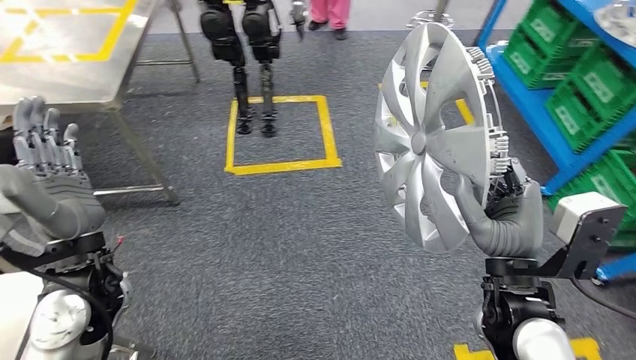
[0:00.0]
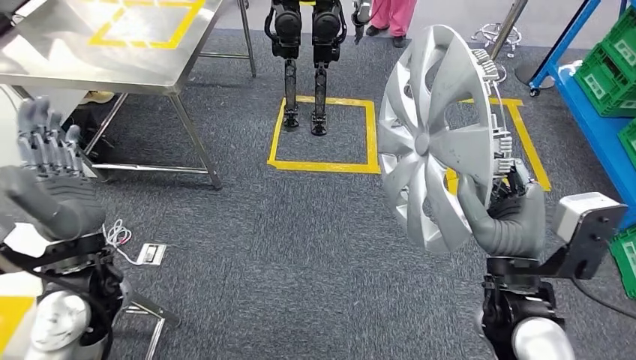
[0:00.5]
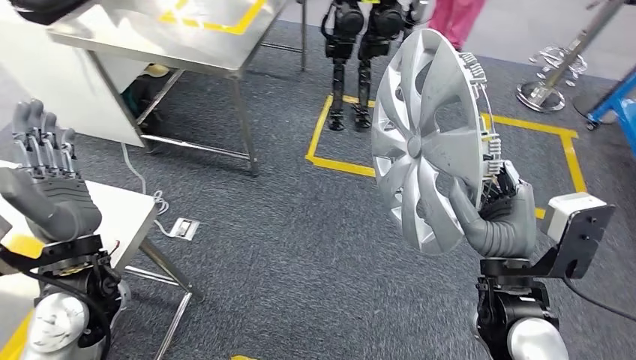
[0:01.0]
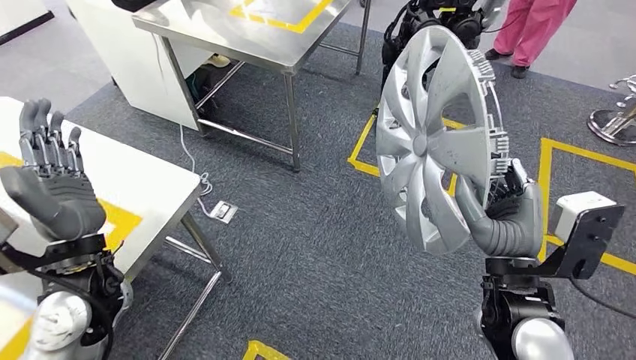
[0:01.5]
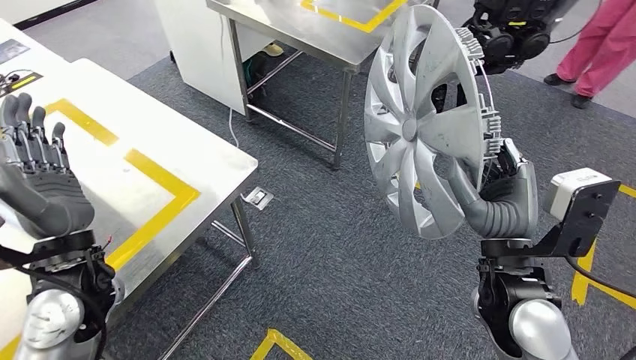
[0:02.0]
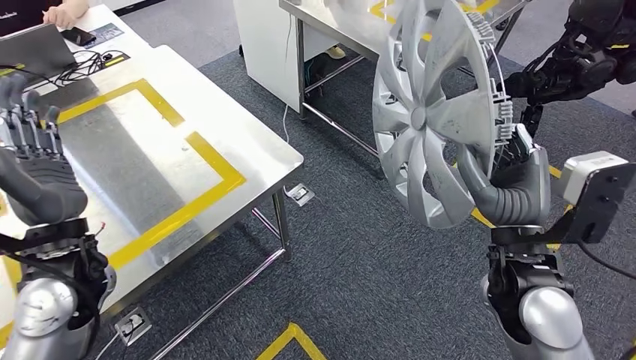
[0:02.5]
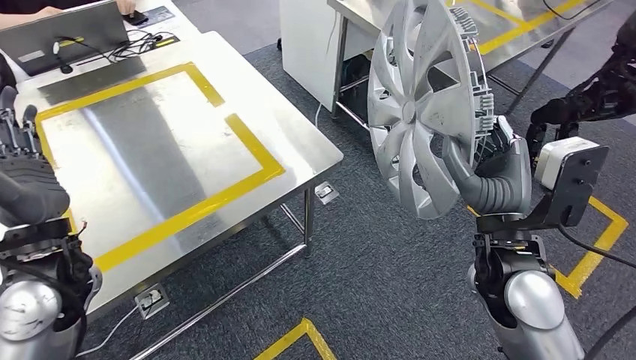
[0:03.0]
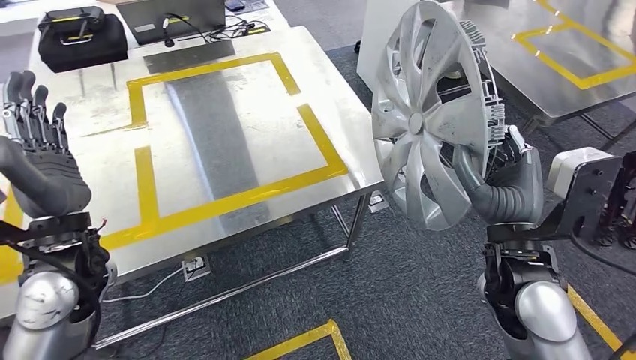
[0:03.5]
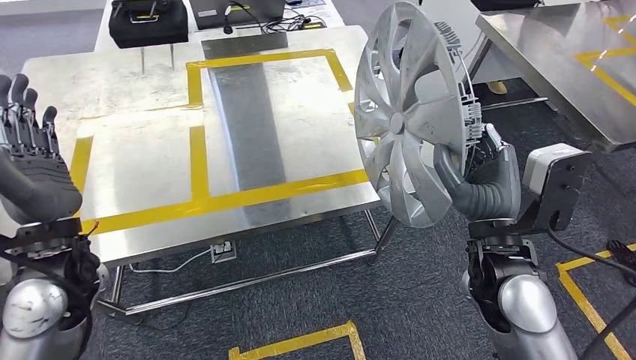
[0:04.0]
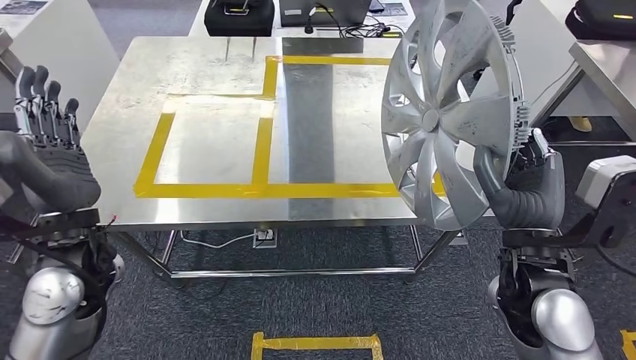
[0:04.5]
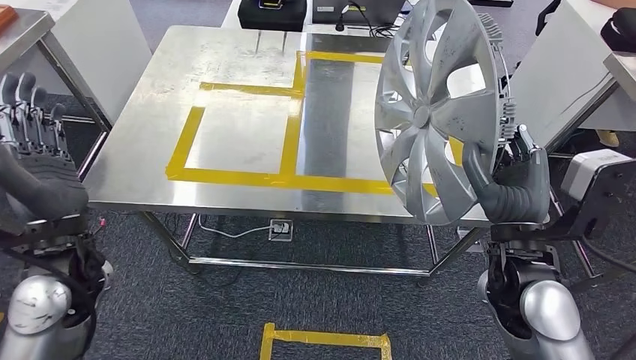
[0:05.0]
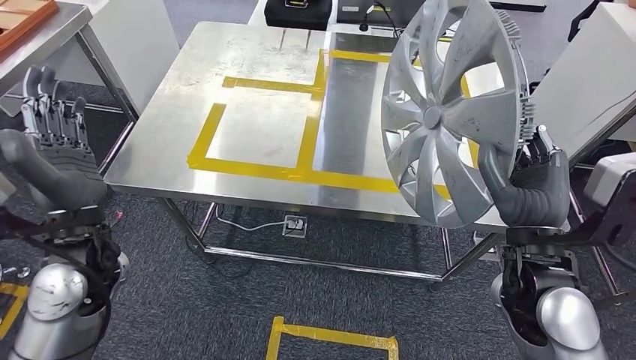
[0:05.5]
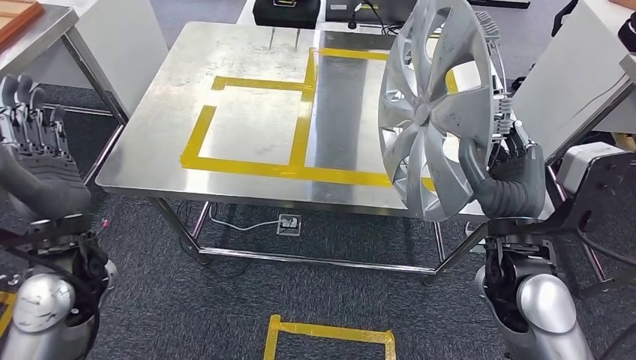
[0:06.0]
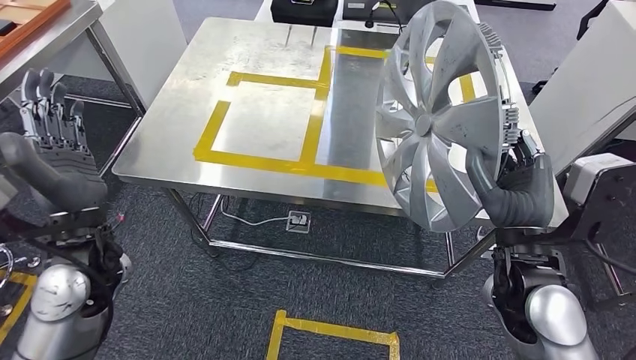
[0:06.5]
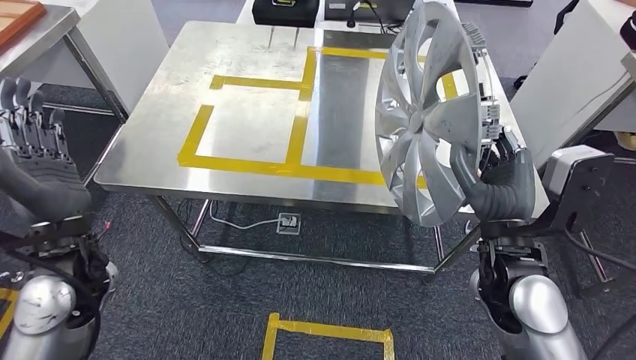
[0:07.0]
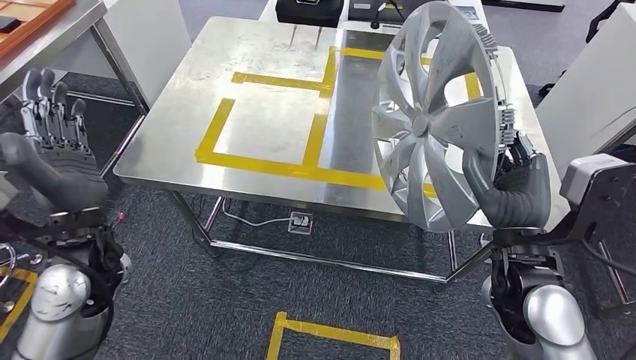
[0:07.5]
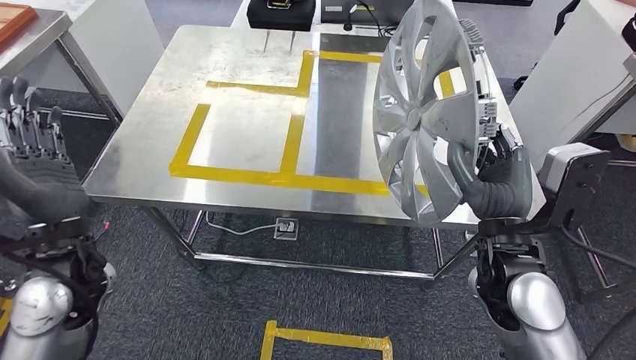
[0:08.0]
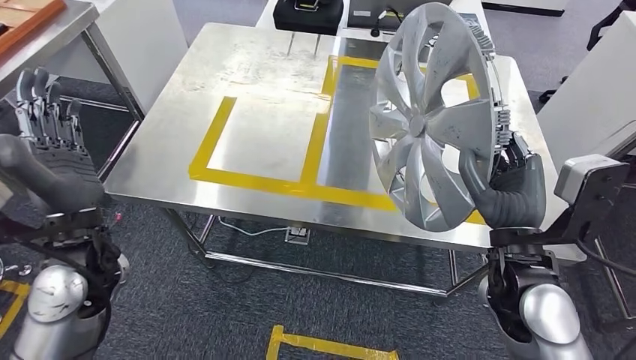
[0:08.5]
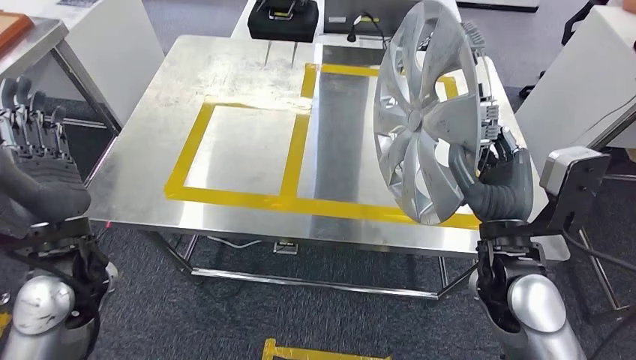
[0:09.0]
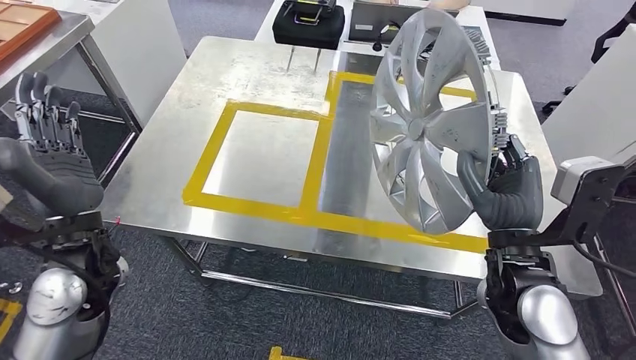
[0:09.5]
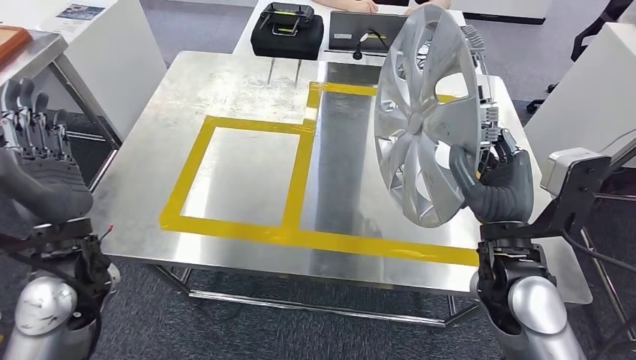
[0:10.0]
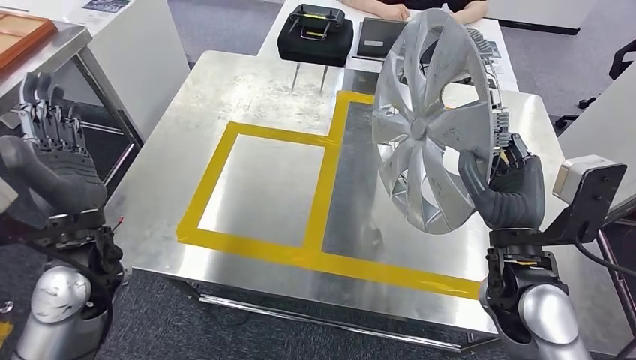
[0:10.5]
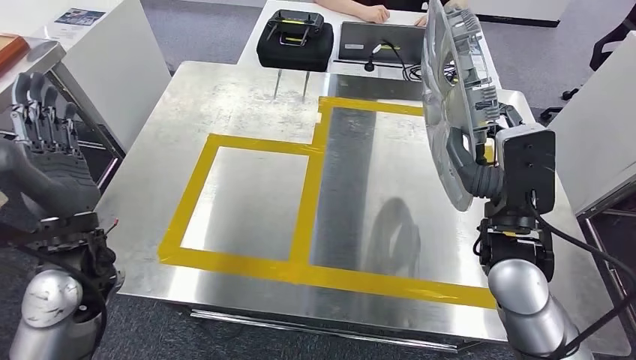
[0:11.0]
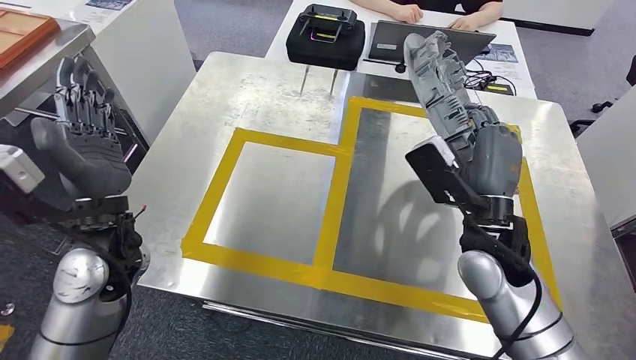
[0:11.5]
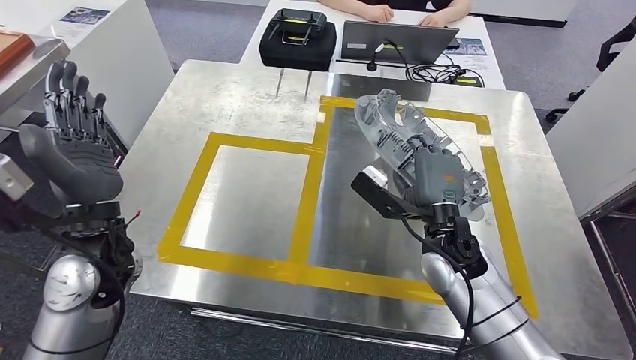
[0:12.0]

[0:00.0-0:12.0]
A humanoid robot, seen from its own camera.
Step, 0:00.0 to 0:10.0: Move the small component to the workbench.

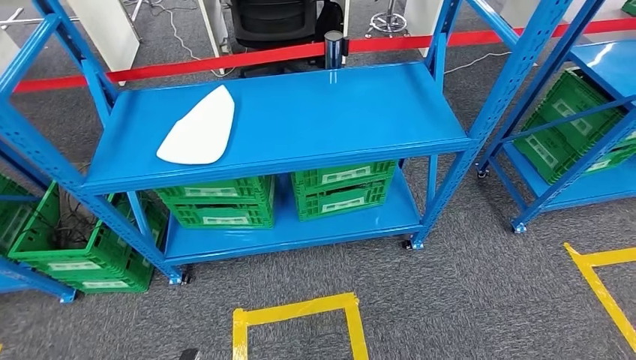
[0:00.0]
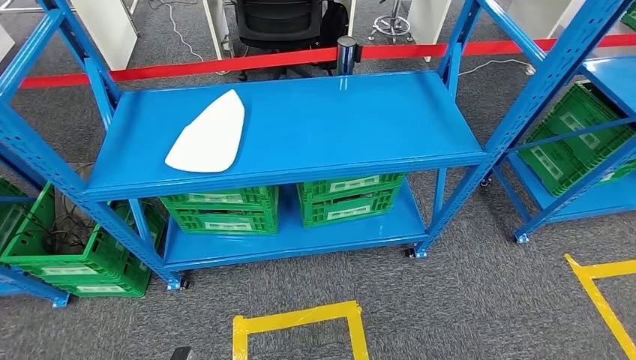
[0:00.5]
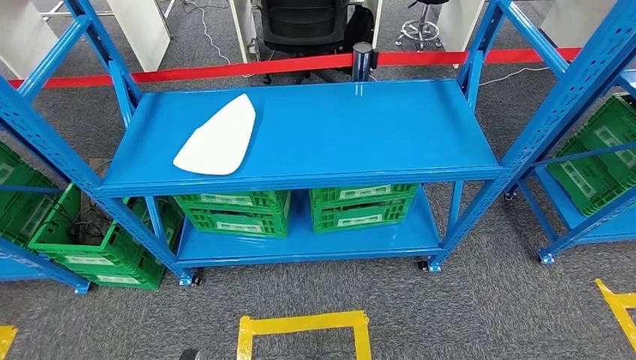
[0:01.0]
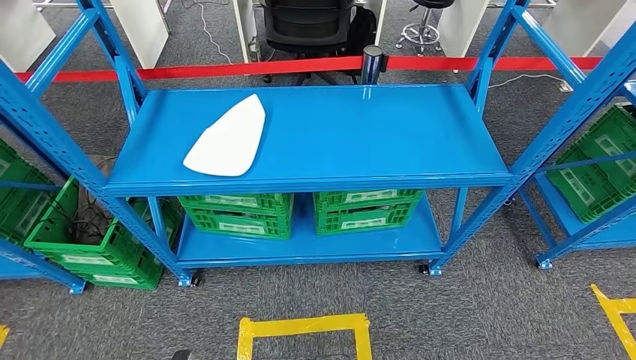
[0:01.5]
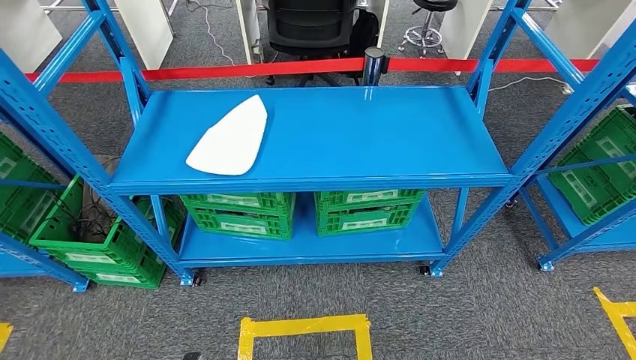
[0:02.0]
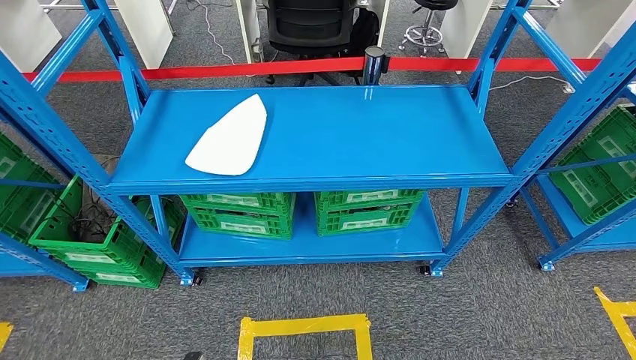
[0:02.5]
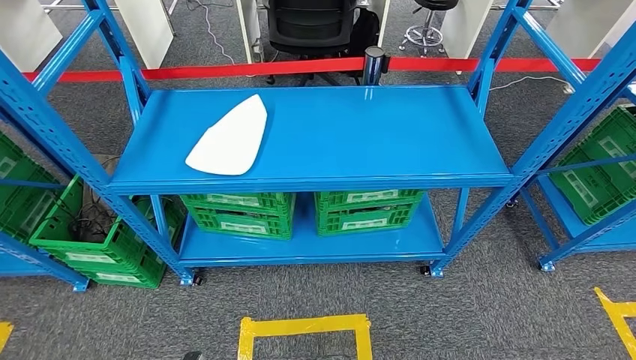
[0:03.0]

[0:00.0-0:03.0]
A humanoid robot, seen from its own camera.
Step, 0:00.0 to 0:03.0: Return to the initial position at the workbench.
0:01.5 to 0:03.0: There are only small adjustments of the hands.
